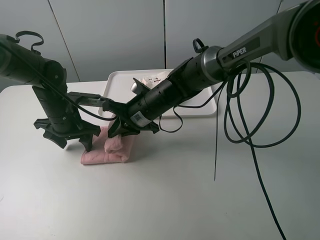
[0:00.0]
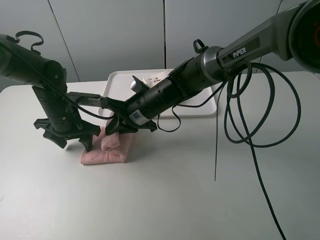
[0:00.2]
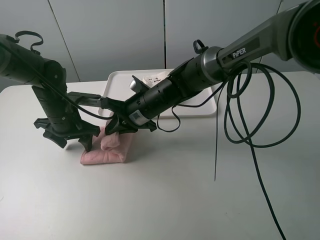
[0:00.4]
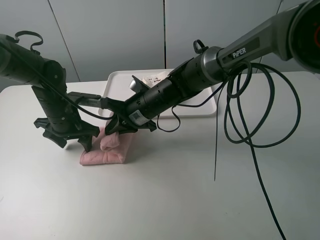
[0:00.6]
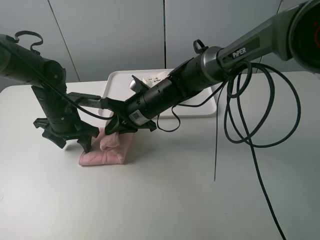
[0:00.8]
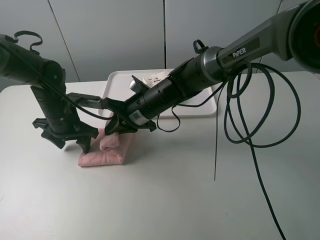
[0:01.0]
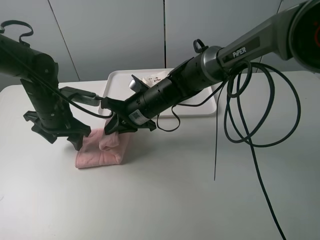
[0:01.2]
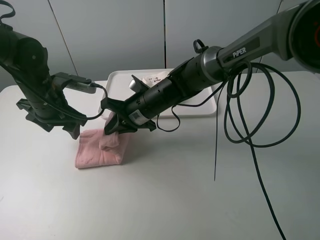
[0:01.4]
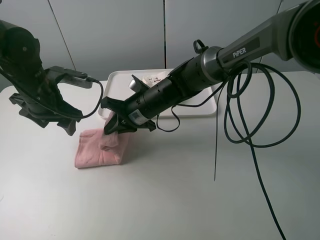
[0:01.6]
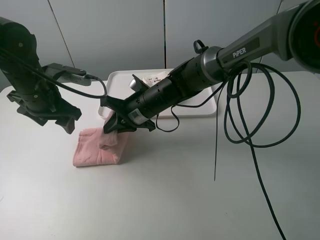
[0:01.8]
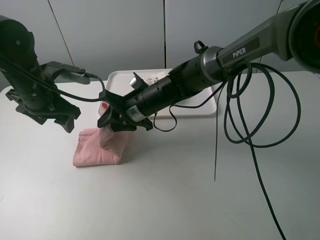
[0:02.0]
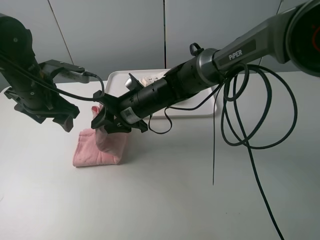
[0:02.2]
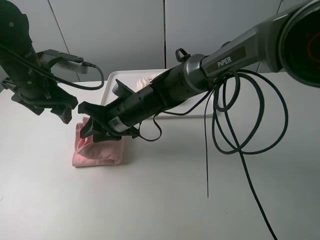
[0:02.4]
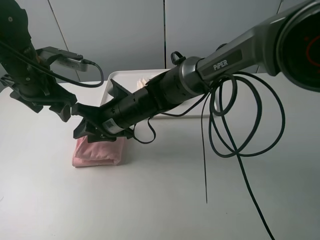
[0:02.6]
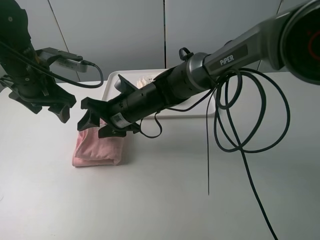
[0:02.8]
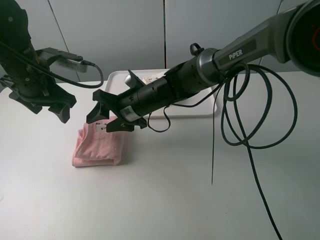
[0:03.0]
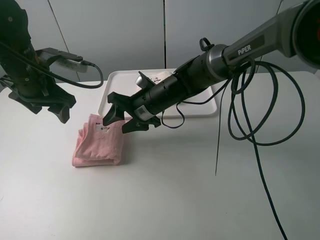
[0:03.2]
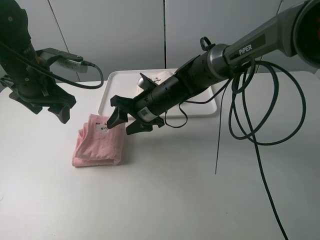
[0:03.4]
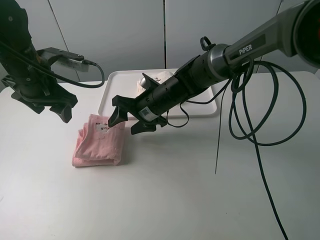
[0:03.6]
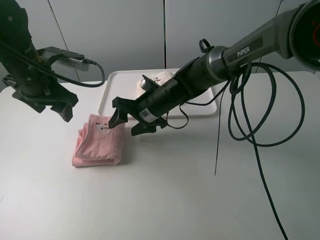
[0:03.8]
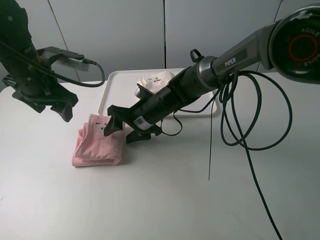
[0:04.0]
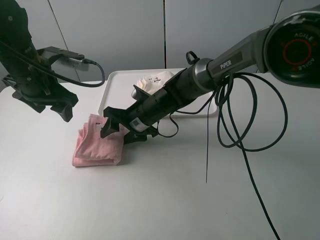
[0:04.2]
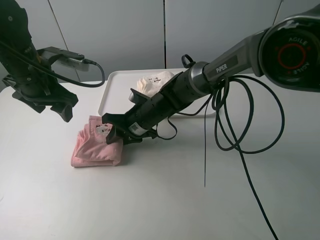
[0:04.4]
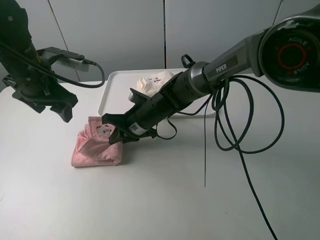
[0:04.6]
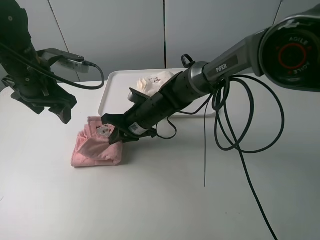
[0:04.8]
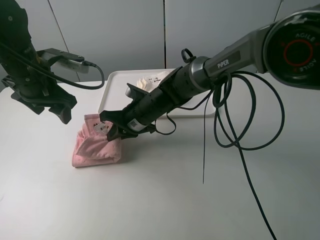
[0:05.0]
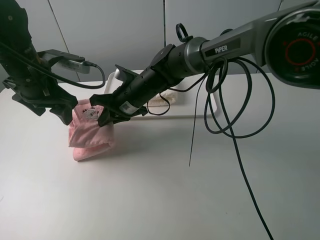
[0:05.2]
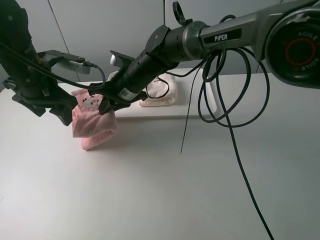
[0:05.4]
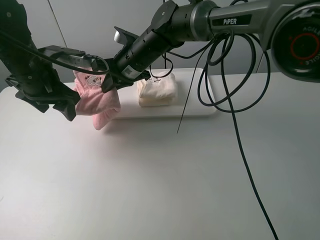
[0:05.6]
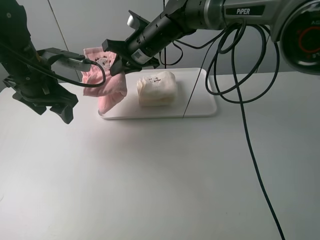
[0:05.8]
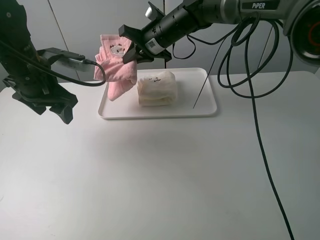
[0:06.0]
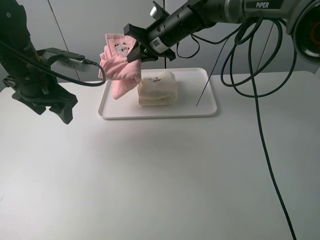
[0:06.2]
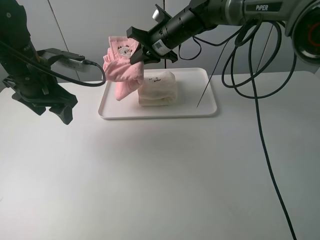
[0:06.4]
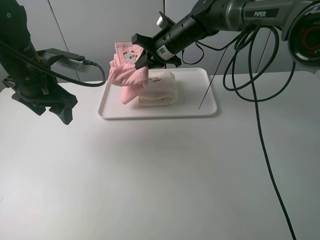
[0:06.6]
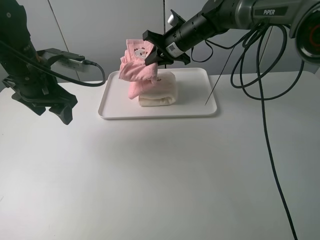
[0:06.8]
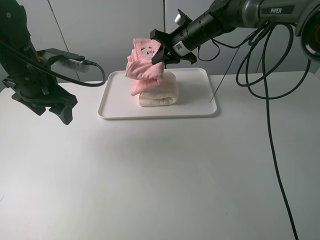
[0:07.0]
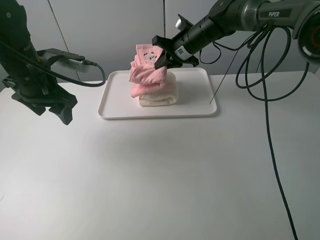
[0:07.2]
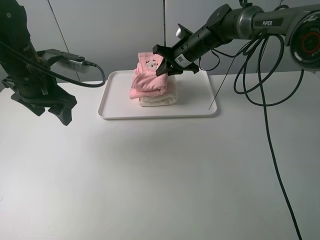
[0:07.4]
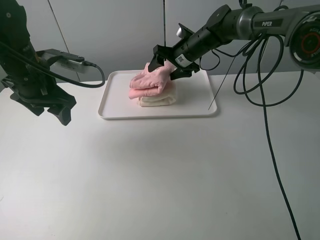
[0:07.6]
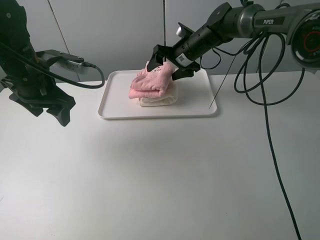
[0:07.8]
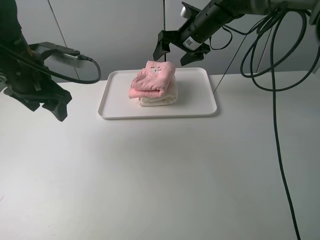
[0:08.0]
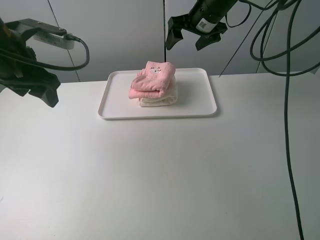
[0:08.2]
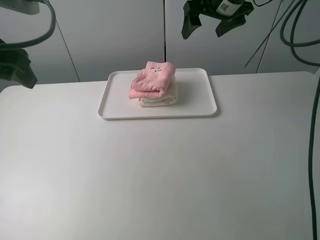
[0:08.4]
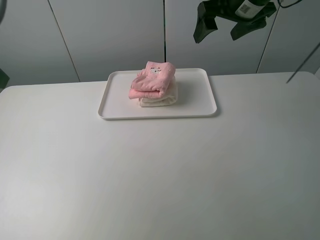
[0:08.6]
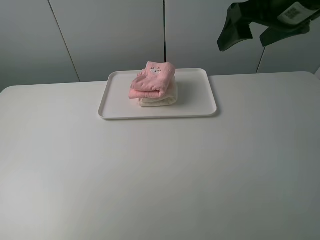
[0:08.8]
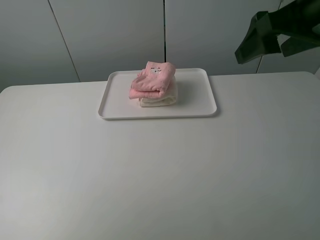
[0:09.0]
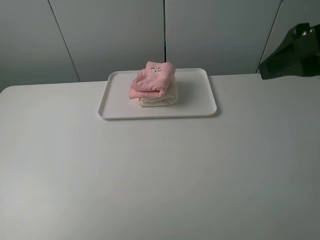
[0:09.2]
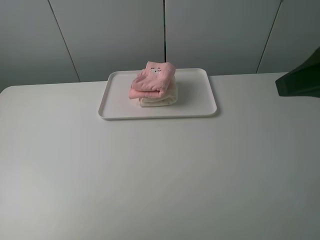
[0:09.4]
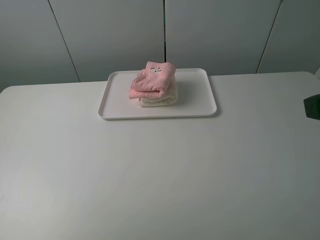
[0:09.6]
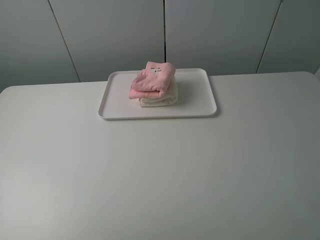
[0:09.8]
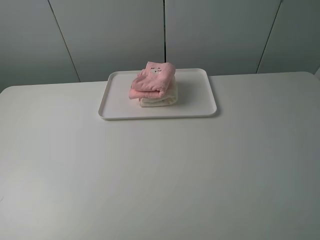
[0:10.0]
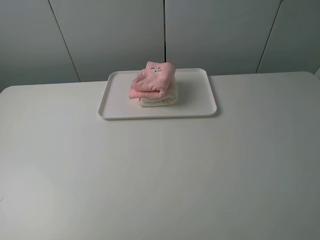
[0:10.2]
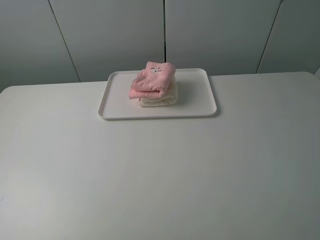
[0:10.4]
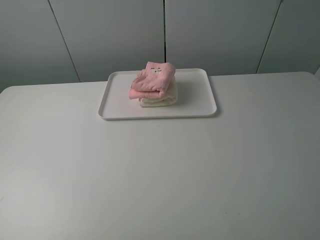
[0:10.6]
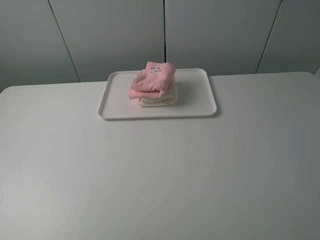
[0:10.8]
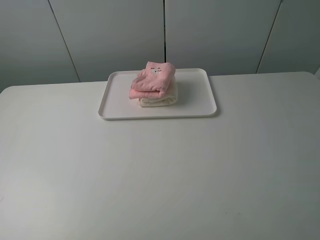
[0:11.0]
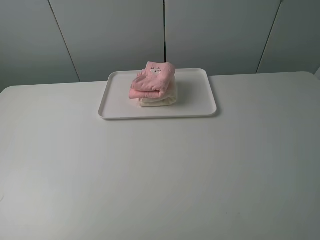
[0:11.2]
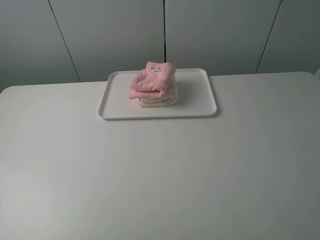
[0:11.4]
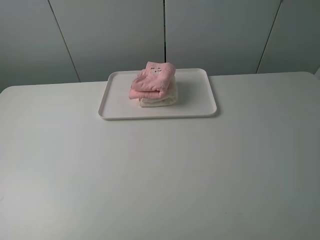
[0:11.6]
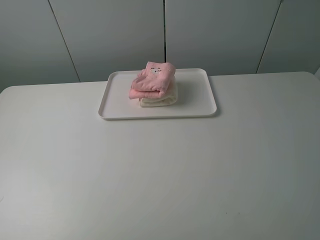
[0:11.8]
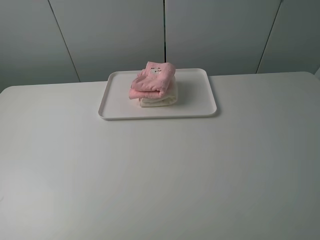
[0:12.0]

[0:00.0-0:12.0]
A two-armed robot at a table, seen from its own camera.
Task of the whole recording: fold one of the towels by two grippers and place it on the tray,then fold another towel by two grippers and place it on the folded towel.
Step, 0:00.0 to 0:02.6: Fold the pink towel from right to left with right gripper.
Step, 0:02.8 to 0:04.6: Grasp the pink towel with the right gripper.
Step, 0:04.8 to 0:07.8: Place the pink towel on the white towel with the right gripper.
0:00.0 to 0:01.6: The left gripper shifts about 10 cm upward.
0:01.6 to 0:03.0: The right gripper opens.
0:03.0 to 0:04.4: The right gripper closes its fingers.
0:04.4 to 0:06.0: The right gripper shifts some 20 cm upward and forward.
0:06.0 to 0:07.6: The right gripper travels to the right and downward by some 10 cm, and opens its fingers.
0:07.6 to 0:09.0: The left gripper travels backward and upward by roughly 30 cm, while the right gripper travels backward, upward and to the right by roughly 35 cm.
0:09.0 to 0:10.4: The right gripper travels backward by roughly 20 cm.

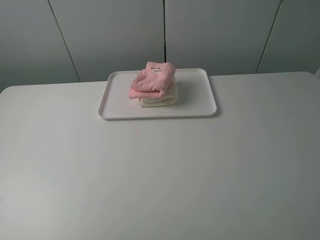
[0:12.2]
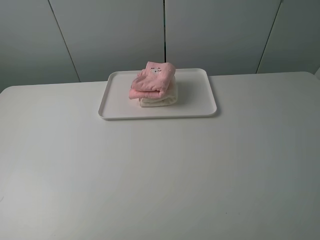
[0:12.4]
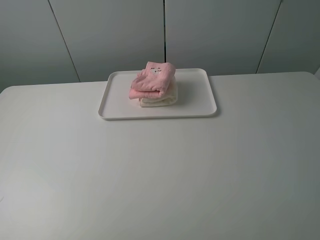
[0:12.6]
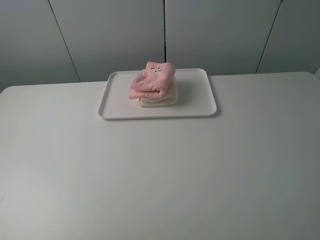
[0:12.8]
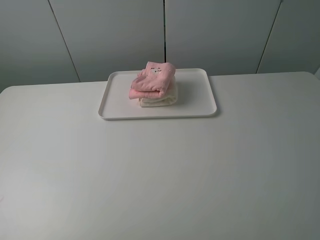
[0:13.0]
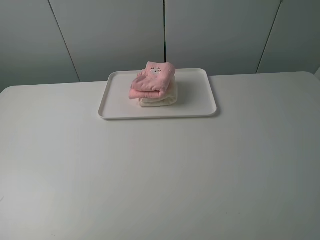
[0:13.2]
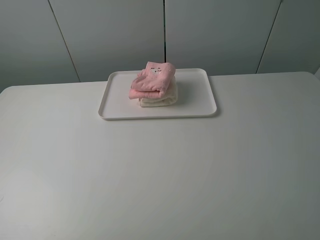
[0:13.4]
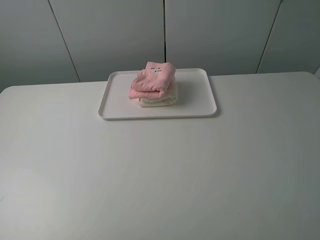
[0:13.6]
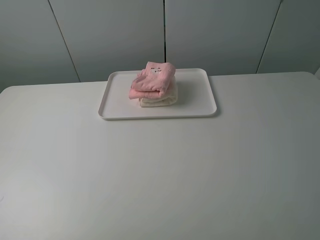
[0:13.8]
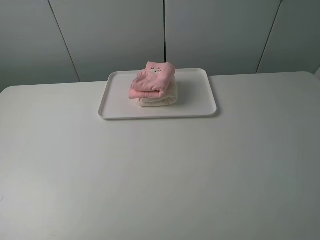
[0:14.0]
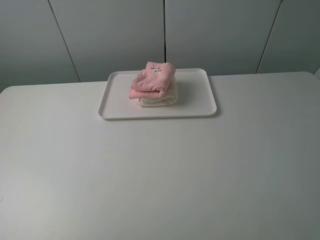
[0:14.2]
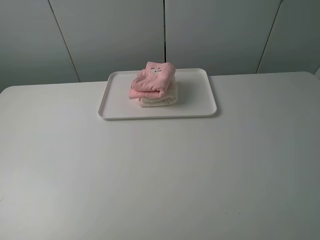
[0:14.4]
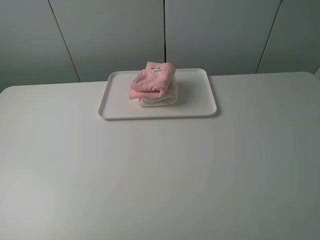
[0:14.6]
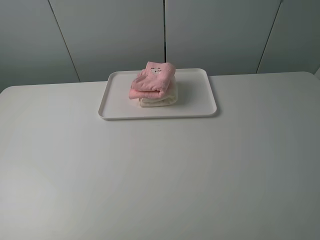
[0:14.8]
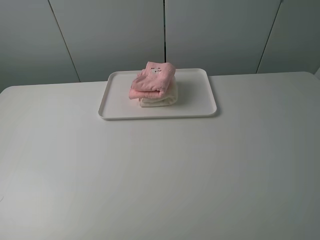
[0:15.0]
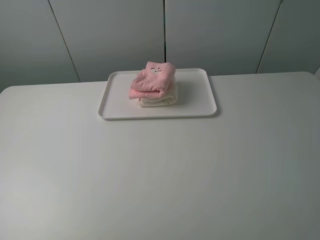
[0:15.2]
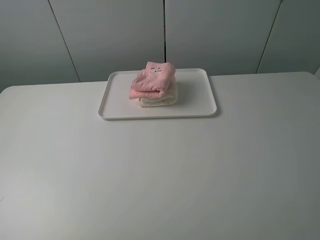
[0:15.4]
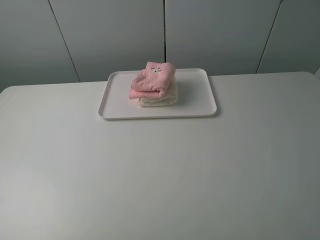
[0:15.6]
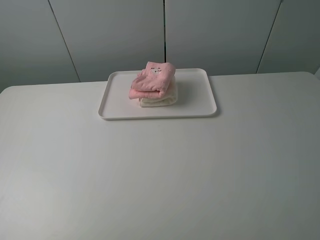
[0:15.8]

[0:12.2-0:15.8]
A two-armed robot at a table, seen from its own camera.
Task of the whole recording: fold one of the towels by two grippers and place it on the tray,then fold another towel by two grippers and place it on the folded towel.
0:14.0 to 0:15.8: Both grippers stay about where they are.
